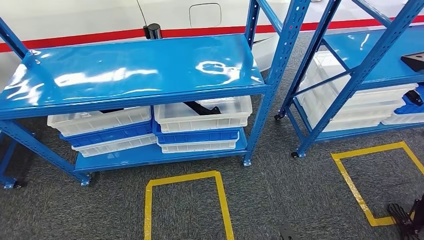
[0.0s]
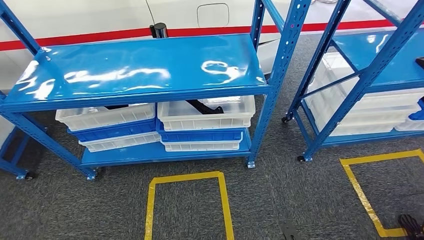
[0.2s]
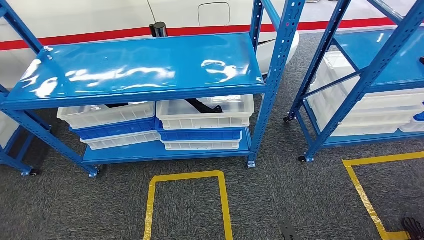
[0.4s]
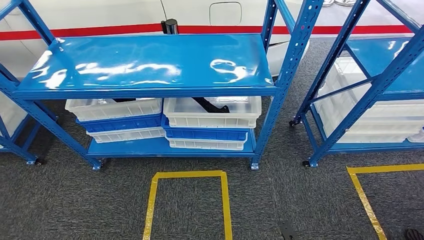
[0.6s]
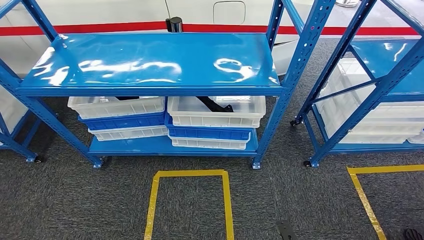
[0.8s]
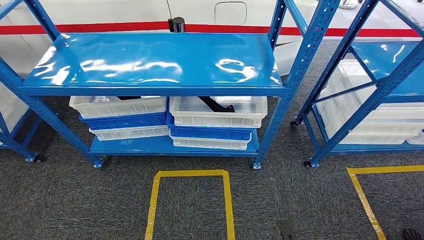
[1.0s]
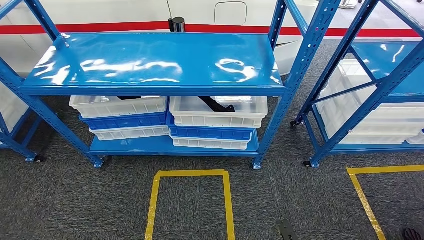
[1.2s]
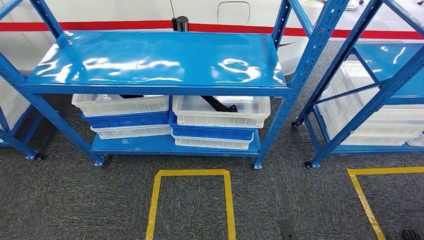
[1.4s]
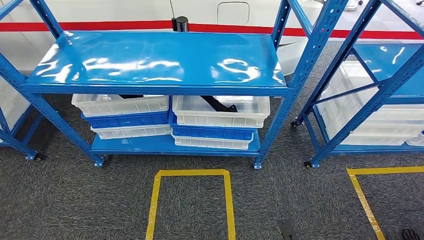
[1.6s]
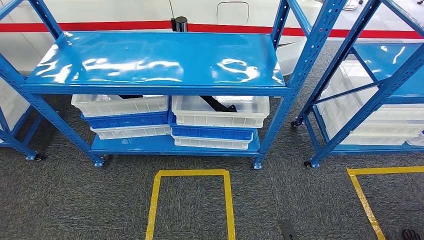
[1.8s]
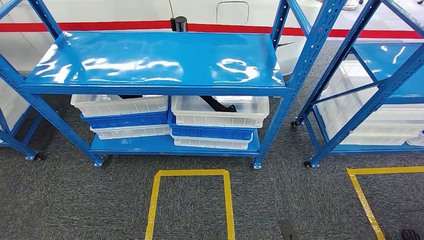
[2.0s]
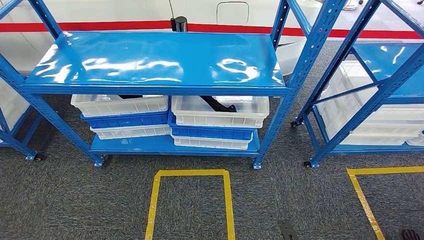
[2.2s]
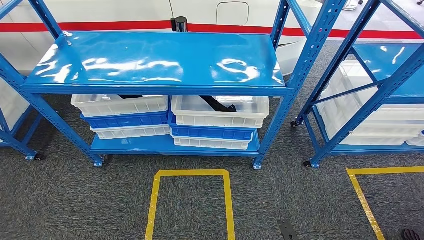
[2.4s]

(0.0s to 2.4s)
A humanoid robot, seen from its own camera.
Step, 0.0s - 2.4s: Return to the initial position at the shelf.
1.2s - 2.4s: Both hands stay about where they are.
